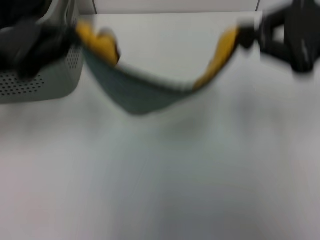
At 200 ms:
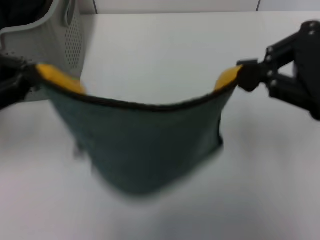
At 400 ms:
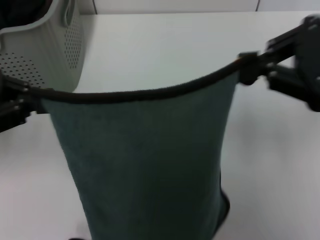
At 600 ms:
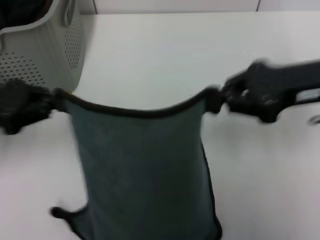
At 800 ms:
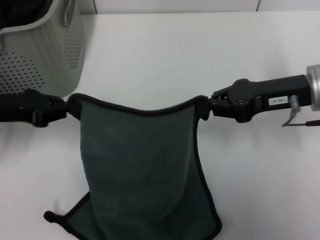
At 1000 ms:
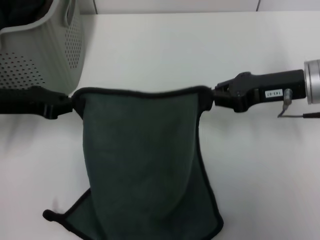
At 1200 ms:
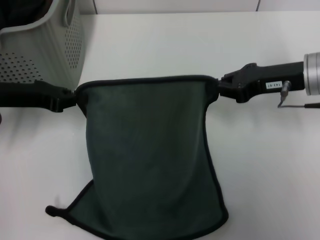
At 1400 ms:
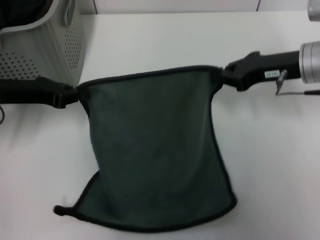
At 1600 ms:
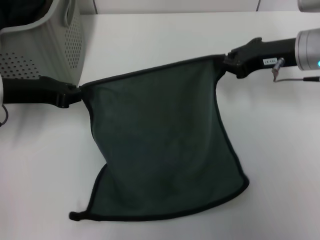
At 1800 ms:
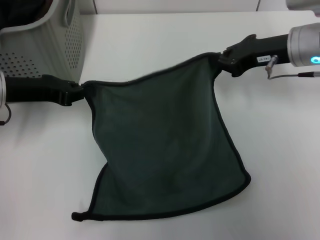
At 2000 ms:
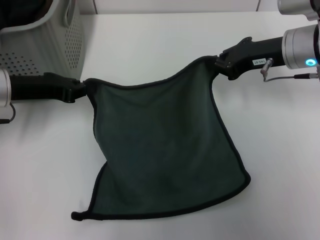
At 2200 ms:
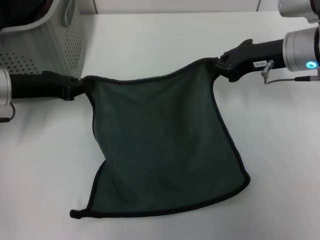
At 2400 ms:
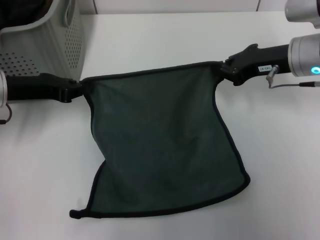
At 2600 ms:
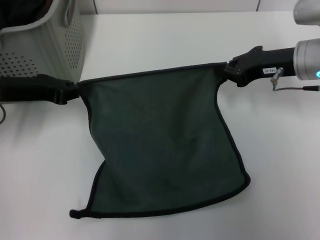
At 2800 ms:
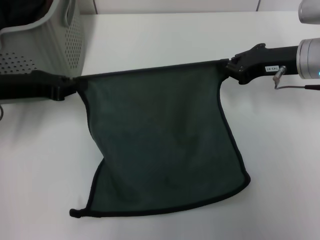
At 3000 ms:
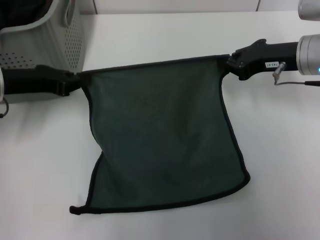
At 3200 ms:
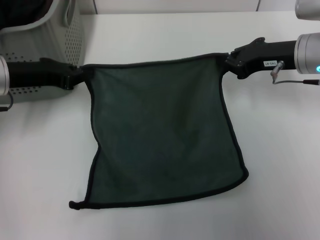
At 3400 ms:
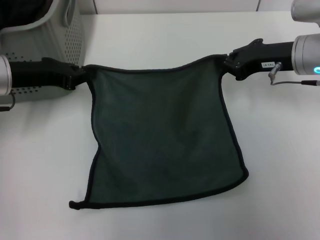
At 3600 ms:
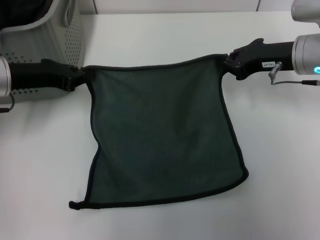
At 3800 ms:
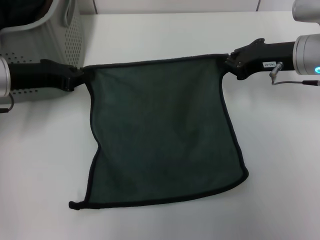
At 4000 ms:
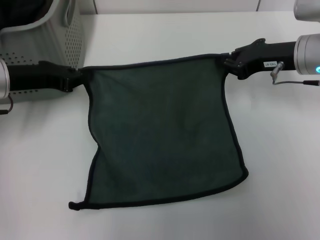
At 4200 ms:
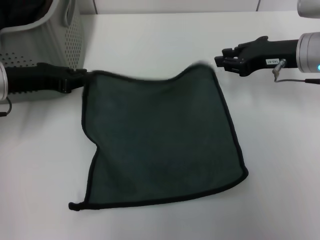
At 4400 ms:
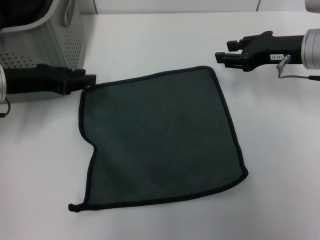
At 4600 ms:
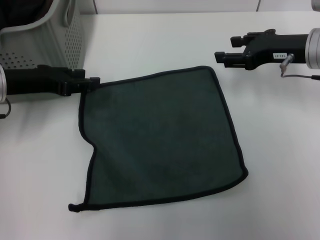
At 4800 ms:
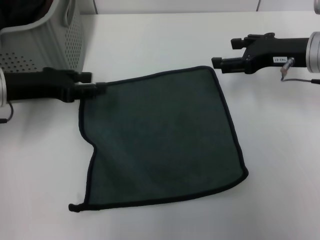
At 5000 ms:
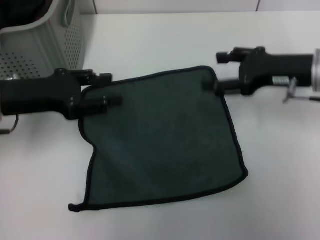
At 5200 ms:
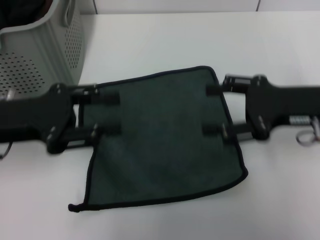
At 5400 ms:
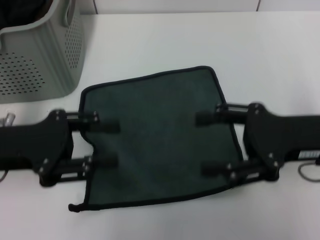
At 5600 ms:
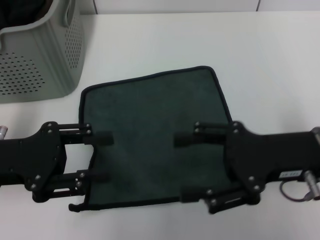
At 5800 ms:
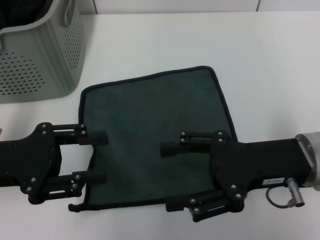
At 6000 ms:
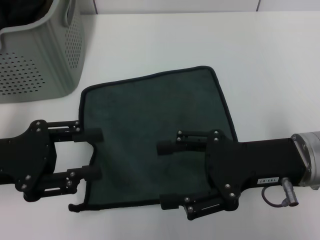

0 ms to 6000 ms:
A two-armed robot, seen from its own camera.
Task of the whole recording: pick up the towel from the storage box and lay it flat on the table.
Step, 0 ms to 4200 ms: Spread the towel flat with the right gripper.
0 ms to 1600 ms: The right gripper moves forward and downward, roughly 15 cm, while the left gripper travels downward by roughly 5 cm.
1600 ms to 3000 ms: The grippers stay close to where they were, moving slightly.
3000 ms to 4400 ms: Both grippers stay put.
4400 ms to 6000 ms: Both grippers travel together backward, approximately 15 cm. The right gripper opens. The left gripper opens.
